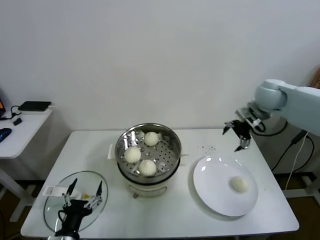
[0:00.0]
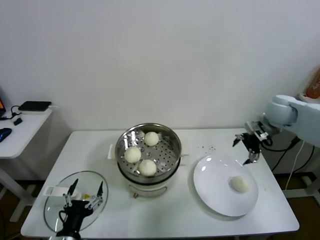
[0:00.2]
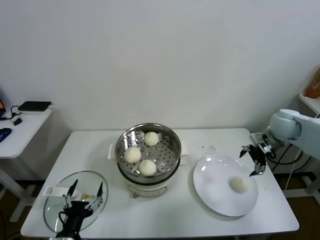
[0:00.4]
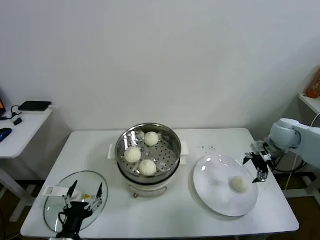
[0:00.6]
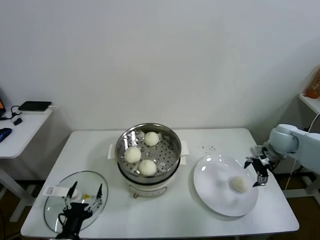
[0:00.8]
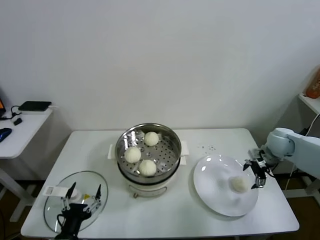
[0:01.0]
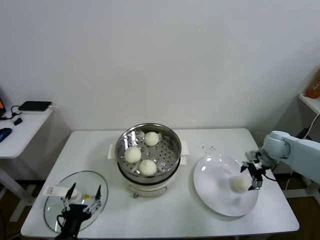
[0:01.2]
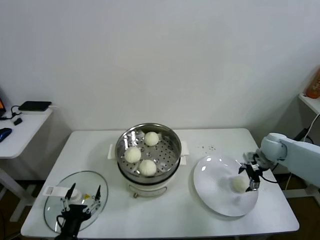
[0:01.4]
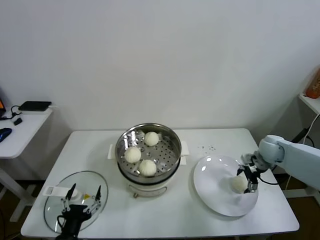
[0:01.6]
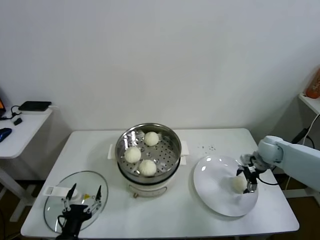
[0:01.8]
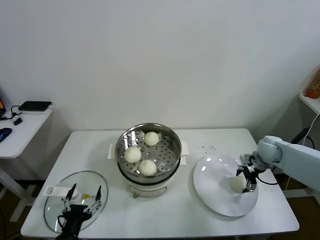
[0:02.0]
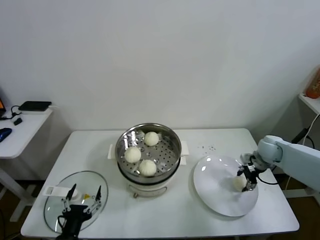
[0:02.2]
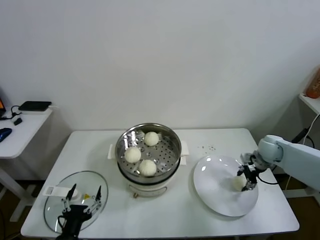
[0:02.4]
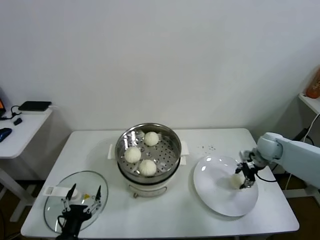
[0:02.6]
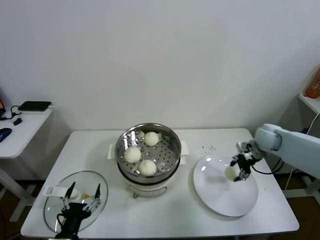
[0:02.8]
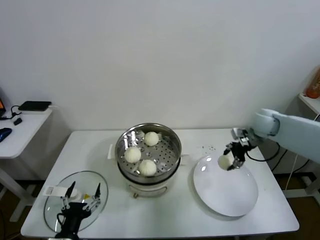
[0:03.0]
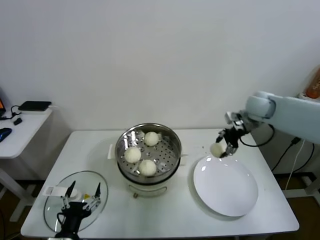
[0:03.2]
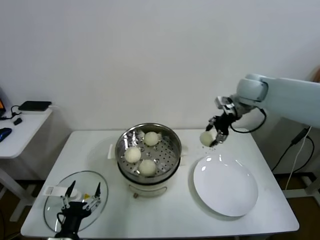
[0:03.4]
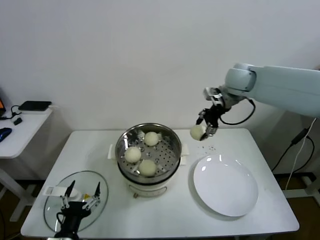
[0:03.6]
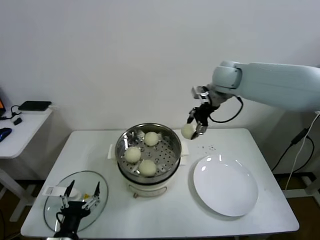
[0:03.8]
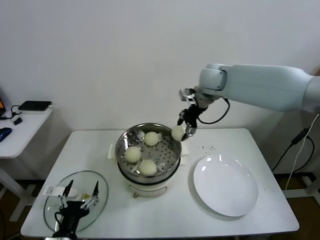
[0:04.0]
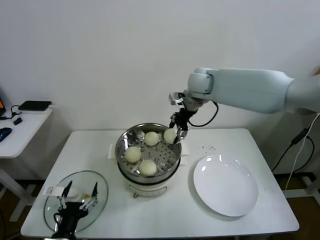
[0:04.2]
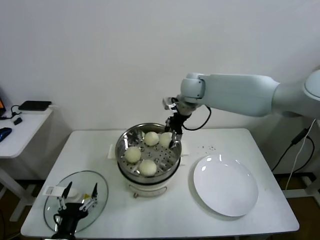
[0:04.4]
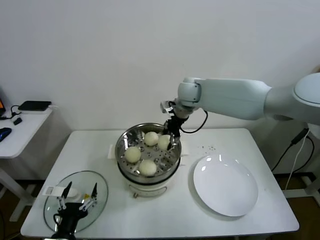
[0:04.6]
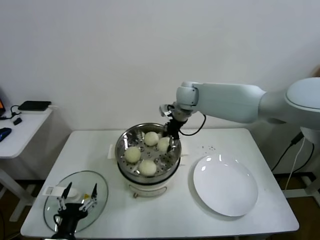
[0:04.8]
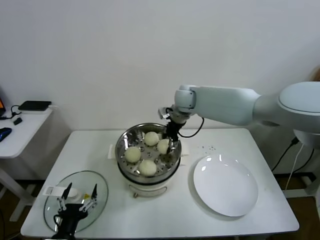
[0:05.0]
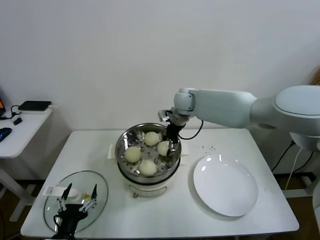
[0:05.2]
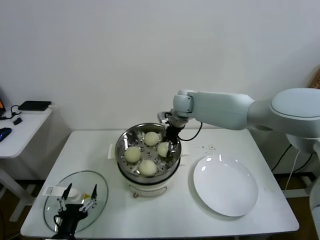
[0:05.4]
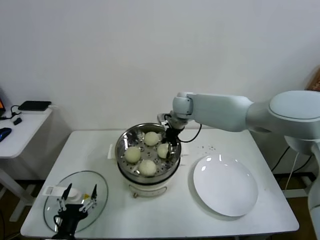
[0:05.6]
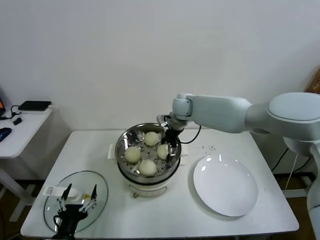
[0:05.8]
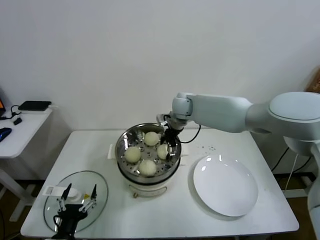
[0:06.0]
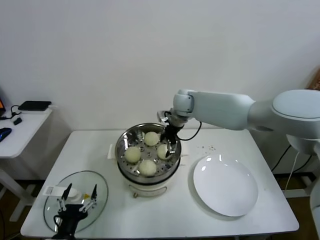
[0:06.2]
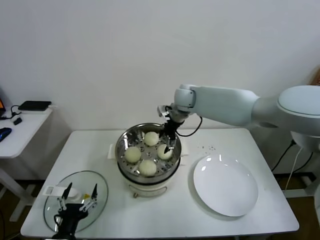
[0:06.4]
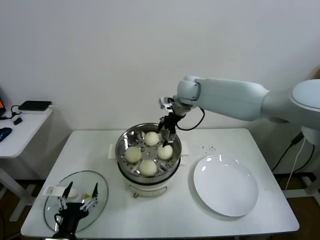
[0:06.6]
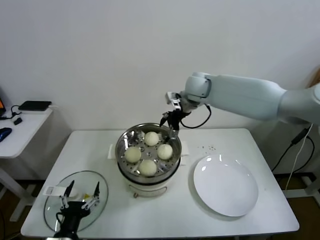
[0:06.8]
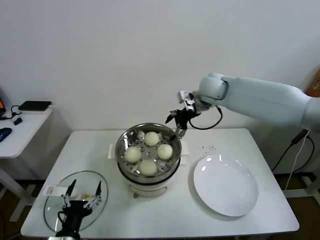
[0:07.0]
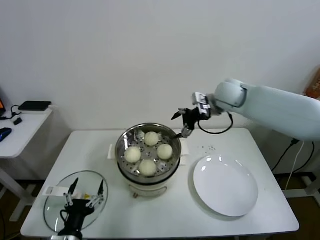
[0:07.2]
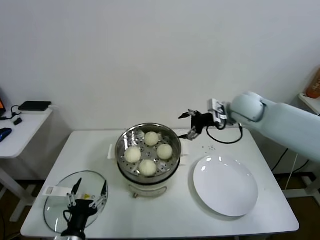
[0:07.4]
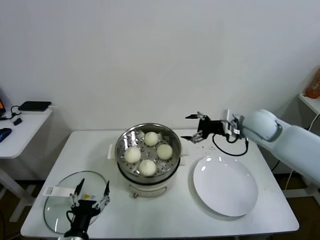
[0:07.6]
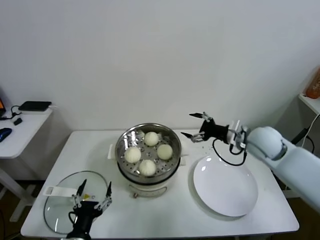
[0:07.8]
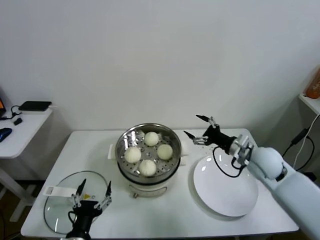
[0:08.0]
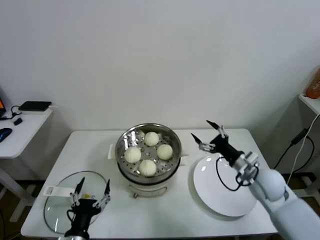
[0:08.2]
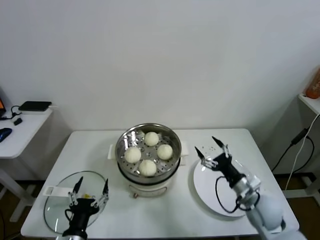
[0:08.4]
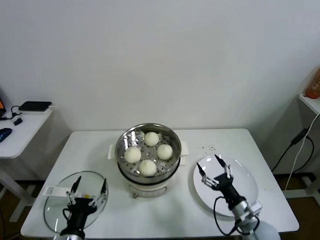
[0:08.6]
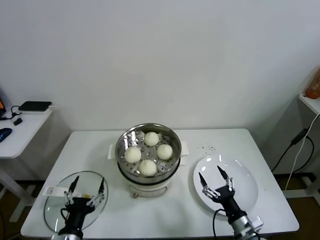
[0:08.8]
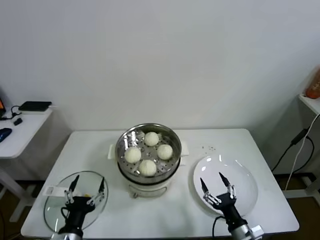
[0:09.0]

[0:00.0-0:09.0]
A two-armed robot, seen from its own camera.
Task of the whole recording: take steamed baozi put them in steamer.
Step, 0:00.0 to 0:02.2: Grasp the baozi in the plate with right gripper.
Step, 0:02.4 to 0:06.0: Place the baozi on the steamer with right gripper.
0:00.0 to 0:01.6: The right gripper goes about 20 cm downward.
0:01.6 to 0:03.0: The right gripper shifts roughly 10 cm upward, and closes.
0:03.0 to 0:04.4: The right gripper travels to the left and upward by about 30 cm.
0:04.4 to 0:06.0: The right gripper travels downward by roughly 10 cm, and opens its fingers.
0:06.0 to 0:07.6: The right gripper goes approximately 25 cm to the right and backward.
0:07.6 to 0:09.0: The right gripper shifts roughly 40 cm backward and downward.
